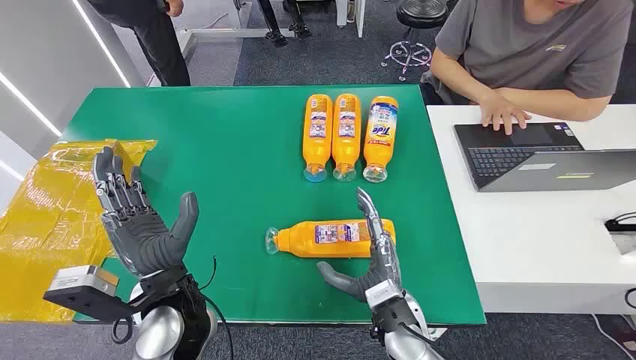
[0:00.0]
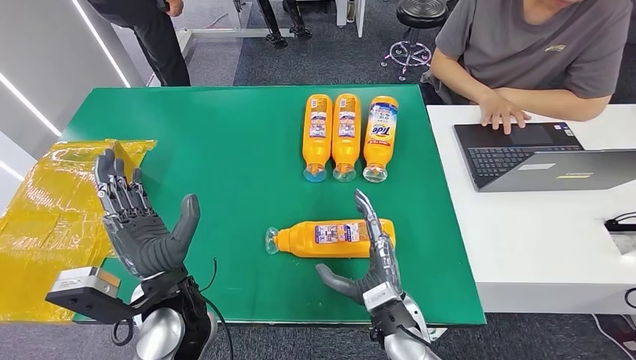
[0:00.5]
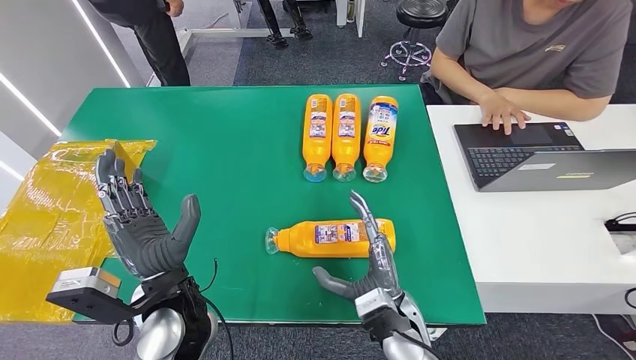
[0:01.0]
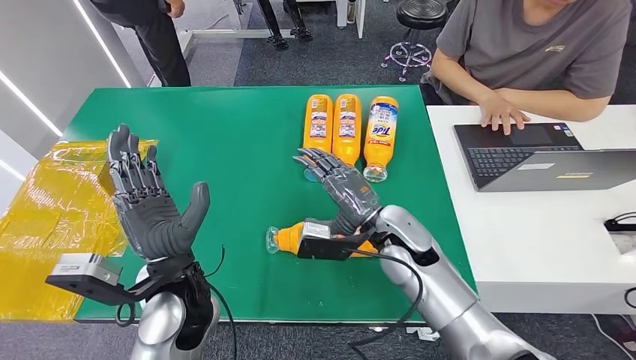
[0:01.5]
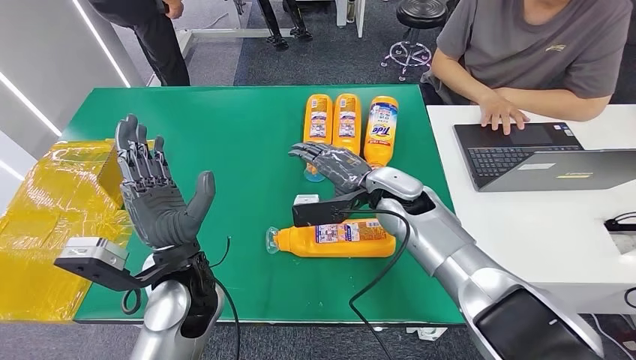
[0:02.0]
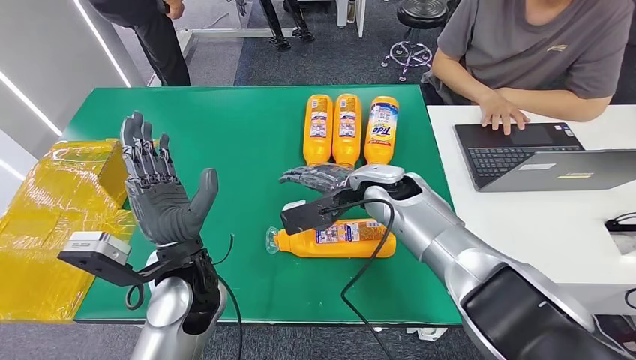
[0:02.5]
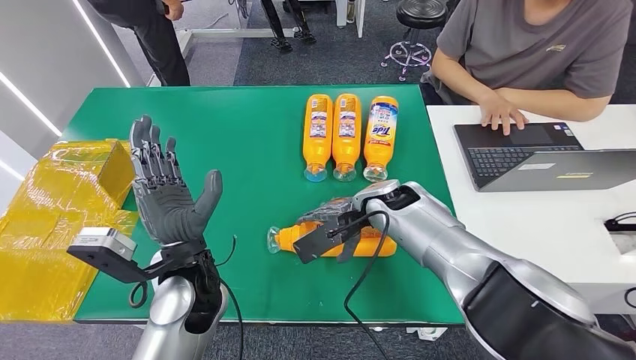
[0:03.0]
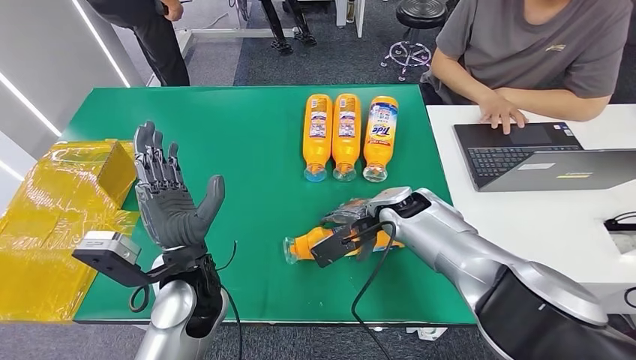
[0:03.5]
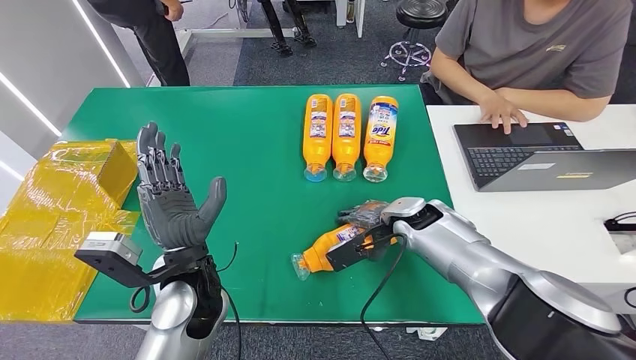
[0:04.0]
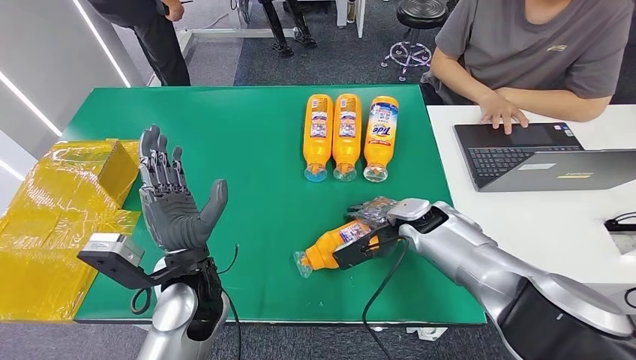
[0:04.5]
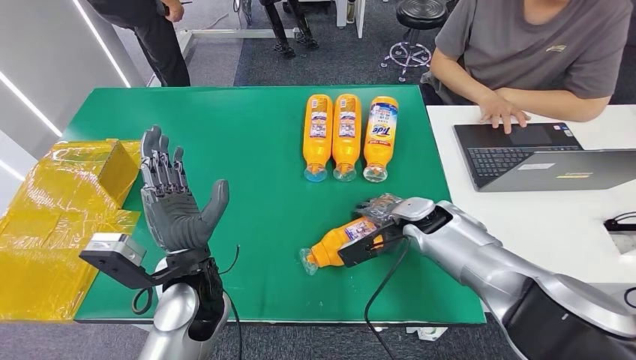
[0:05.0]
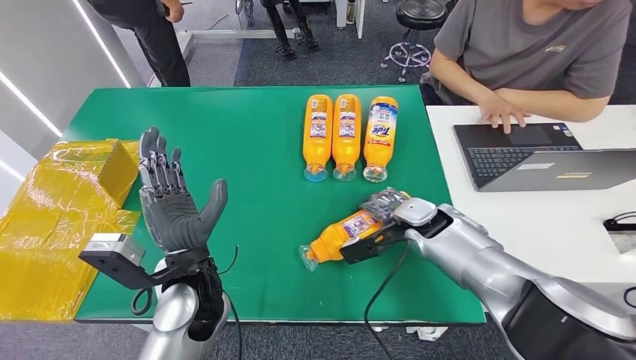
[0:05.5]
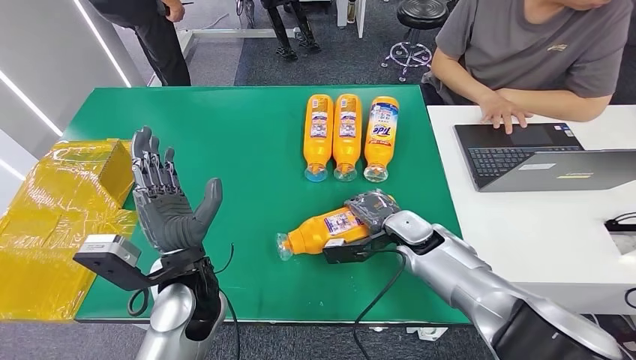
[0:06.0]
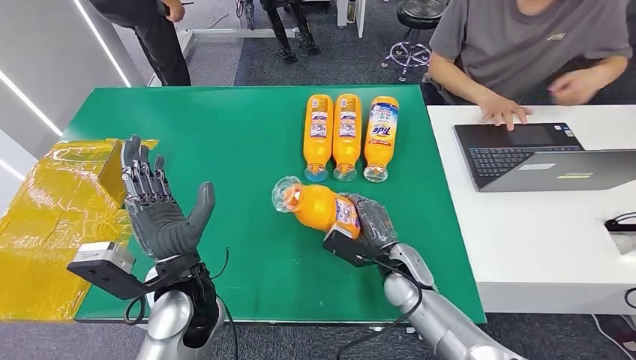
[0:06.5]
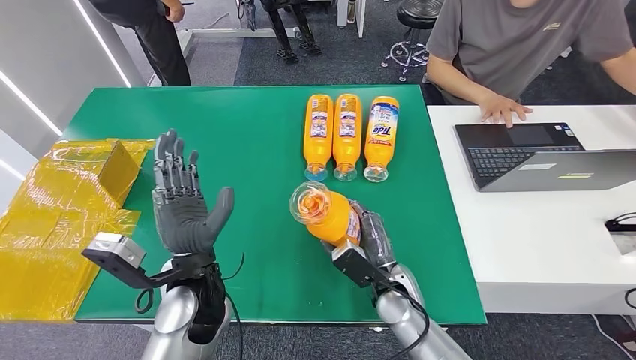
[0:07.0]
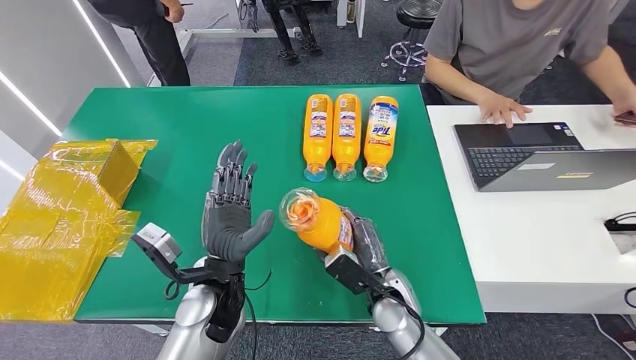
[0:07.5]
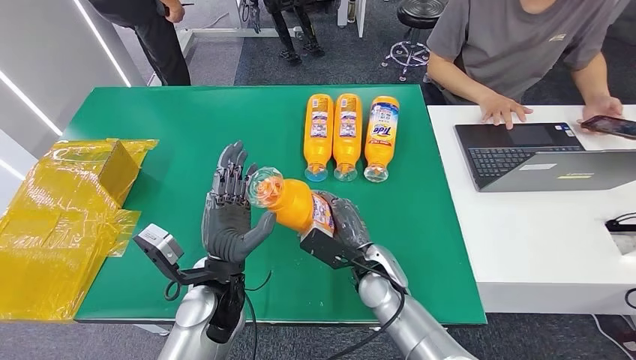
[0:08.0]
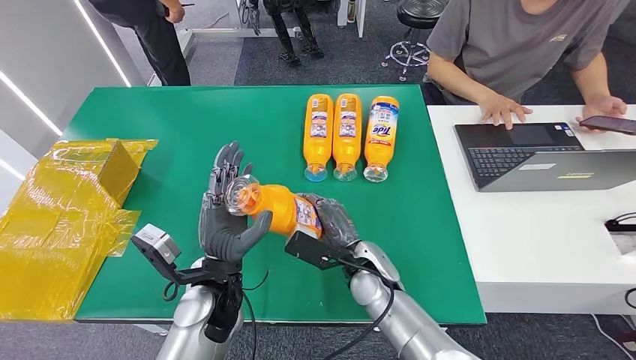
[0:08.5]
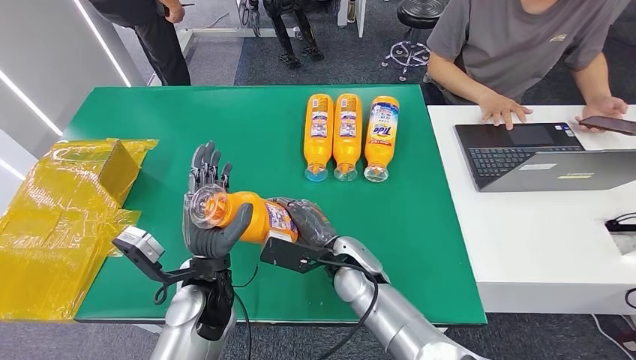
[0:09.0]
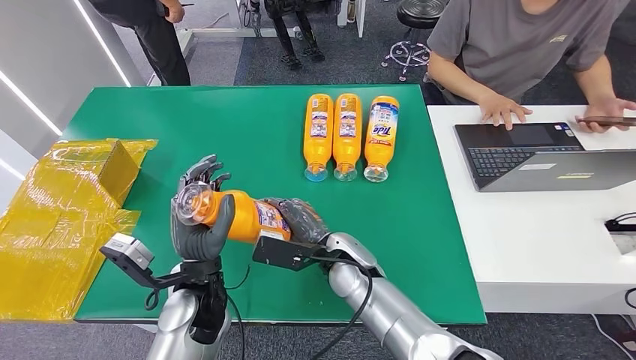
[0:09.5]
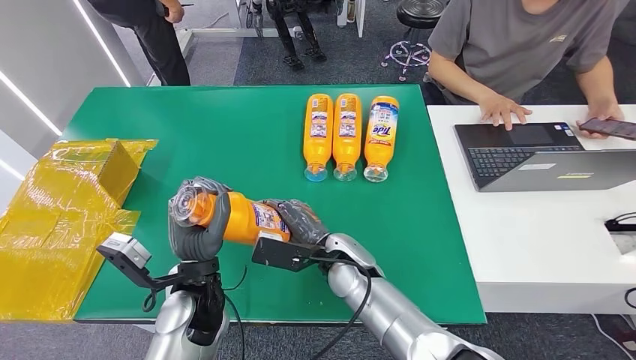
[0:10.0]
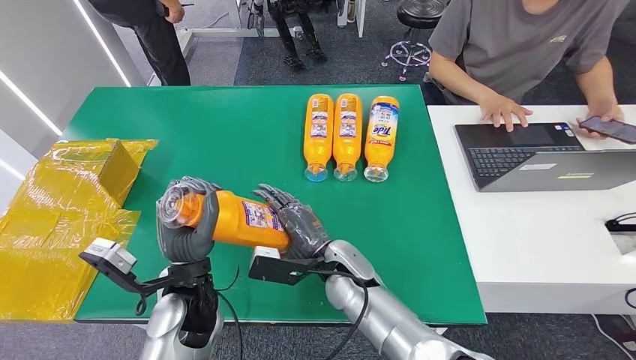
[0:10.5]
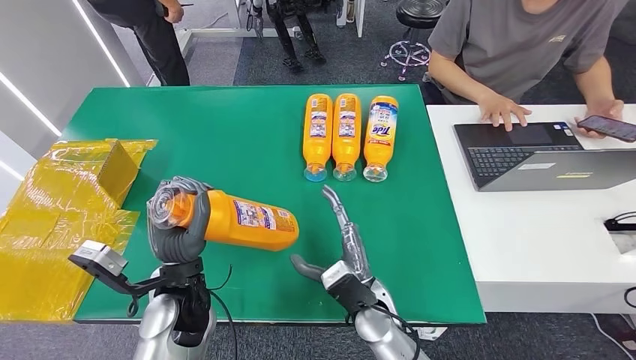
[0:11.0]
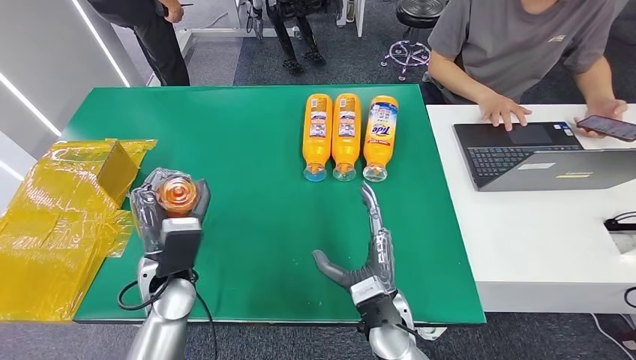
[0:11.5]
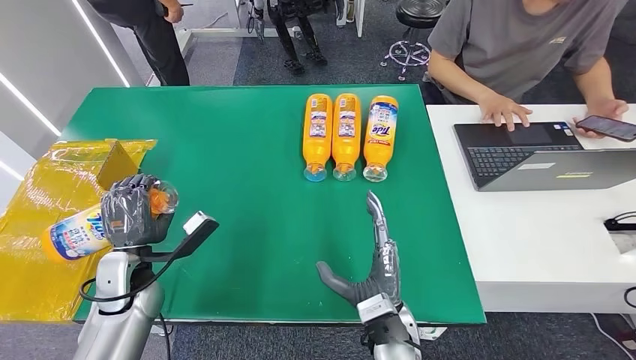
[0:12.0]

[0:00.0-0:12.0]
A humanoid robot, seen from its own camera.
Step, 0:00.0 to 0:07.0: Pick up the bottle from the table.
0:02.0 to 0:04.0: The right hand moves downward and to the right, some 10 cm.
0:08.0 to 0:10.0: The right hand travels to the left by some 5 cm.
0:10.0 to 0:12.0: The right hand heads backward and to the right, covering about 15 cm; the left hand shifts about 15 cm to the left.

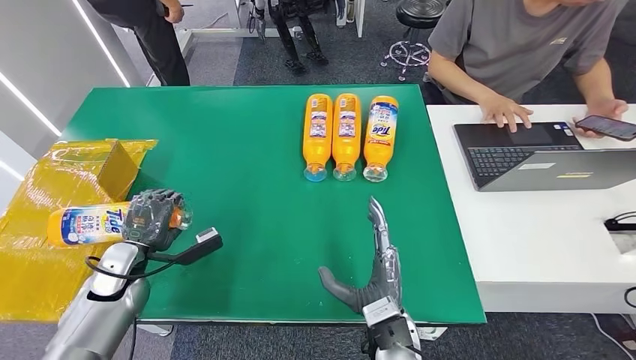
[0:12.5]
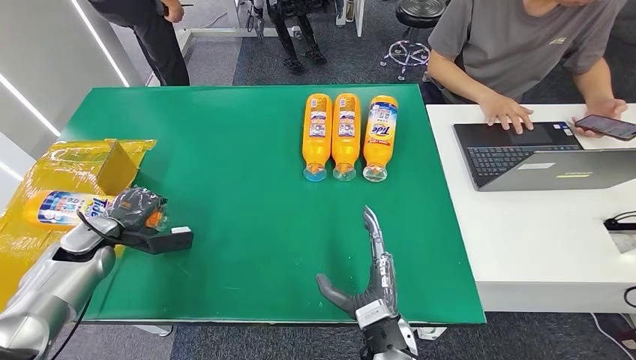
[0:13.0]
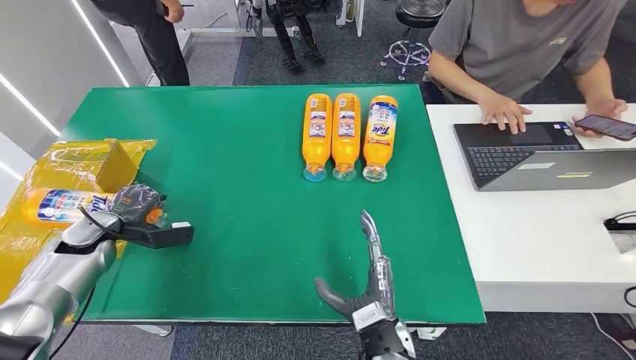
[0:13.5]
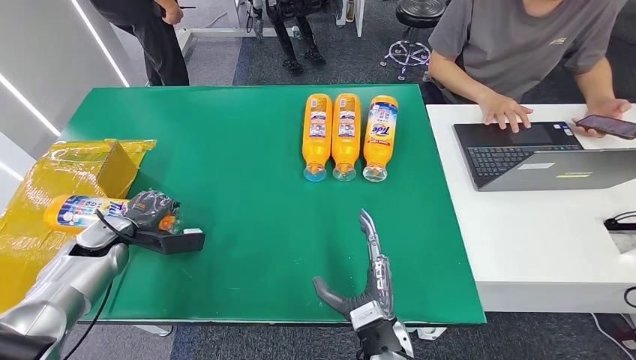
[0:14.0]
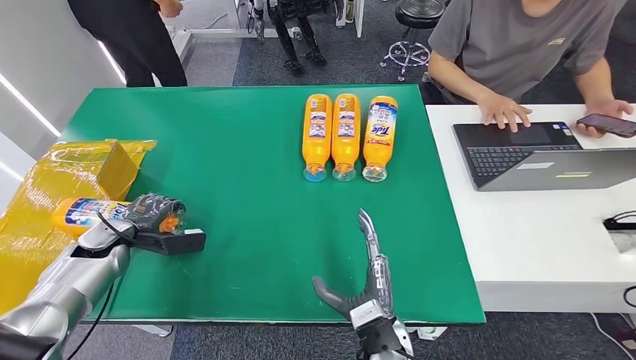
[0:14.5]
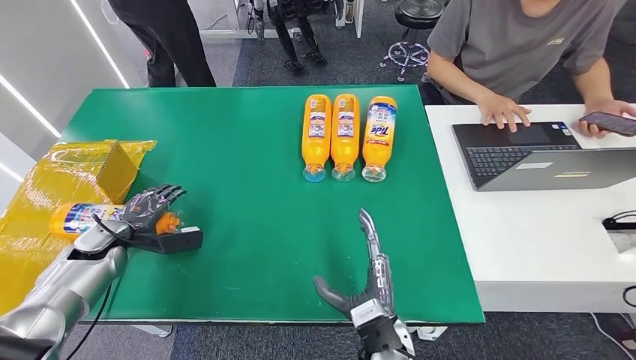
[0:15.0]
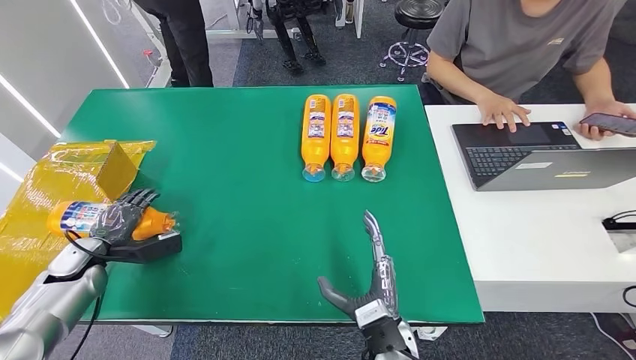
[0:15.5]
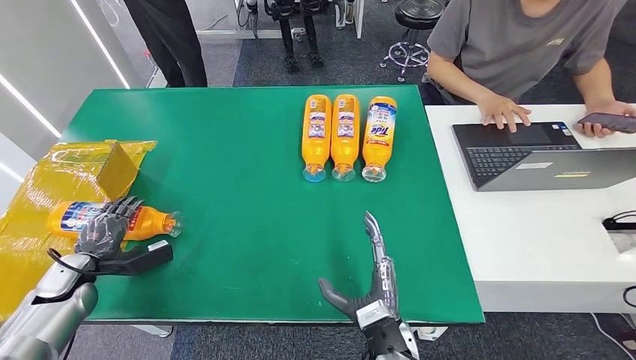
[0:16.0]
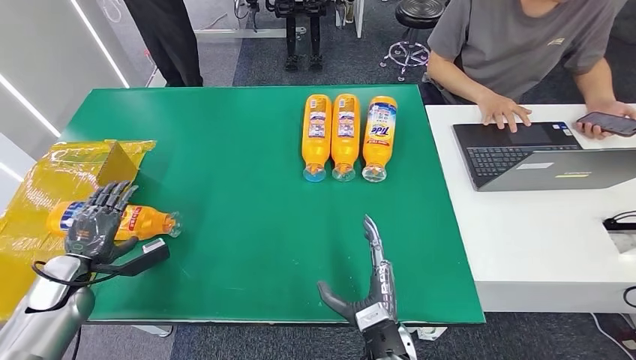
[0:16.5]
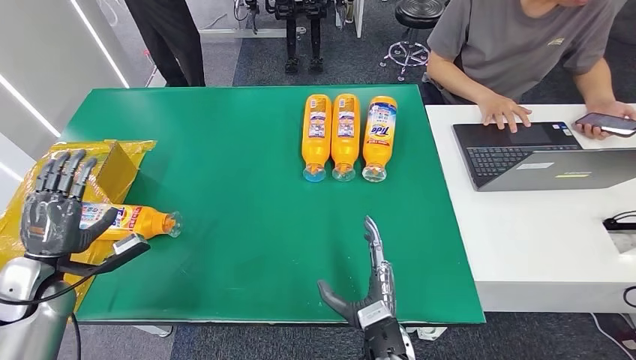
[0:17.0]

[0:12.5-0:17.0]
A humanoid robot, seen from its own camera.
Step, 0:12.5 to 0:17.0: Turn the bottle to the front side.
0:12.5 to 0:14.5: The left hand heads to the left and forward, covering some 10 cm.
0:14.5 to 0:17.0: The left hand is displaced backward by roughly 10 cm.

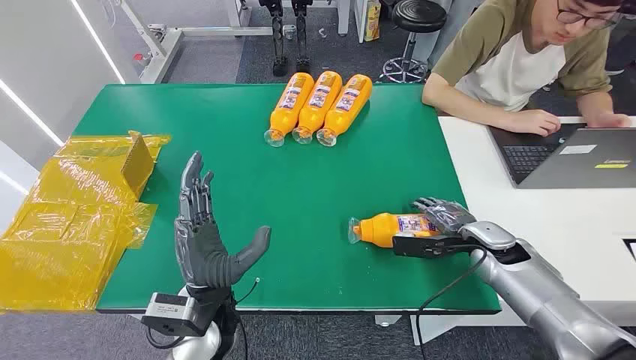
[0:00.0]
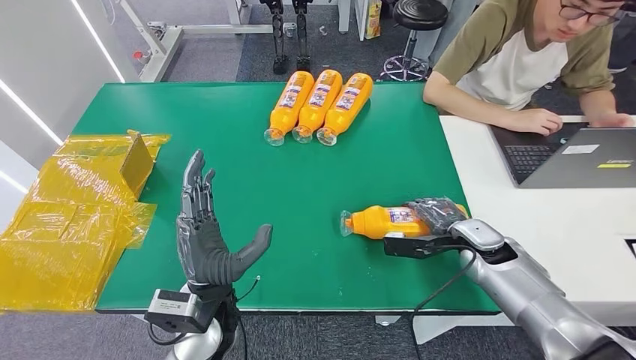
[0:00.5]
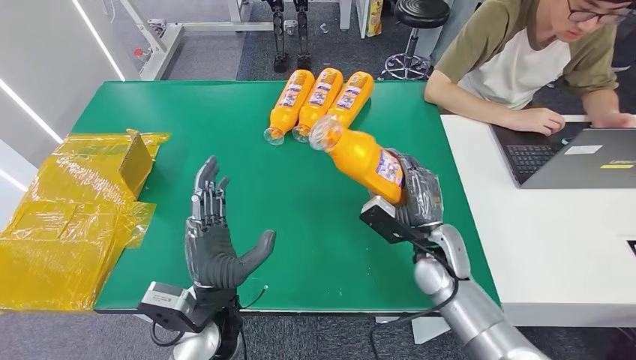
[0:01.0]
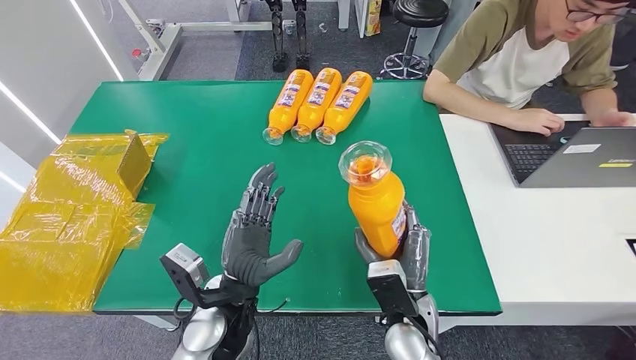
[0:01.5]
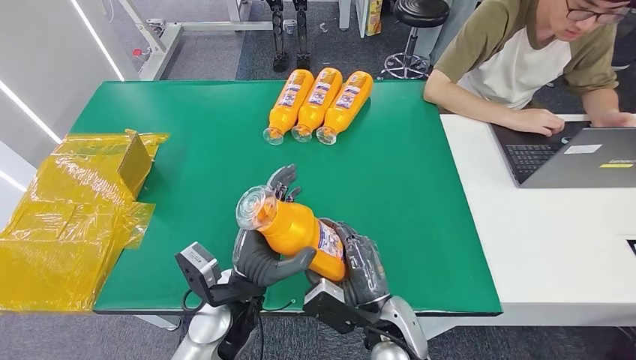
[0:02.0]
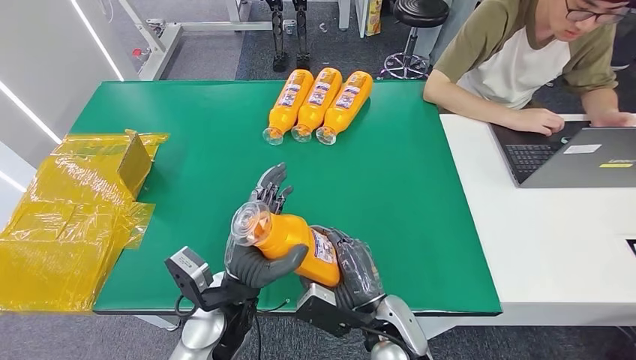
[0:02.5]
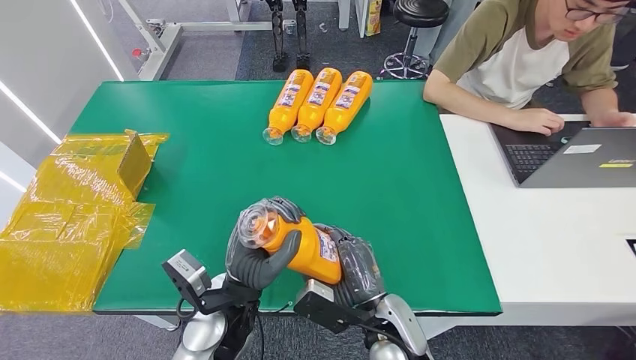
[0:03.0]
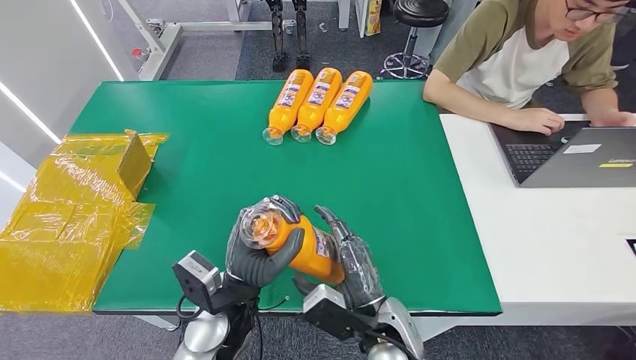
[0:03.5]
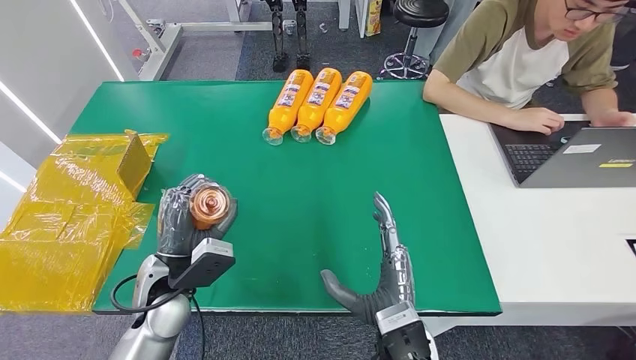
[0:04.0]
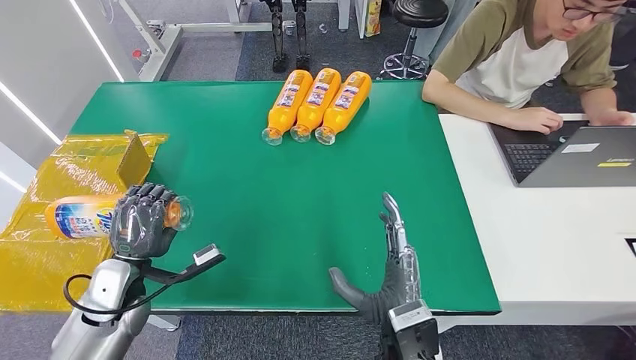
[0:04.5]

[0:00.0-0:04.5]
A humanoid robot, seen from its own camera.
Step, 0:00.0 to 0:02.0: Pick up the bottle from the table.
0:02.0 to 0:04.5: The left hand moves to the left, approximately 25 cm.
